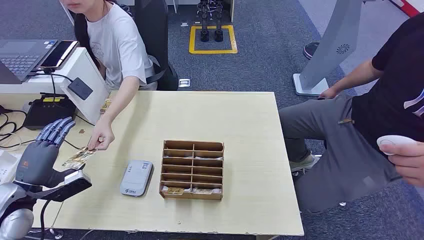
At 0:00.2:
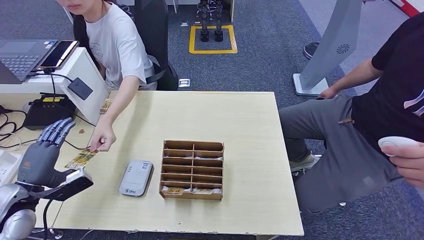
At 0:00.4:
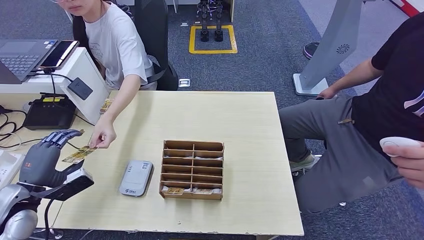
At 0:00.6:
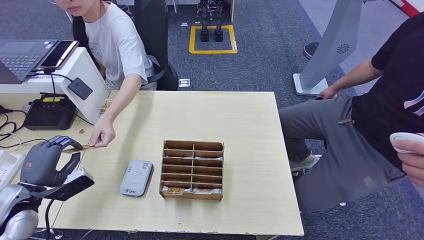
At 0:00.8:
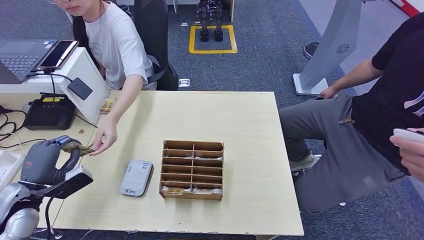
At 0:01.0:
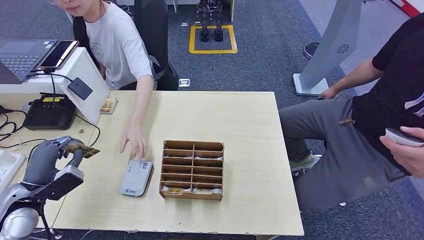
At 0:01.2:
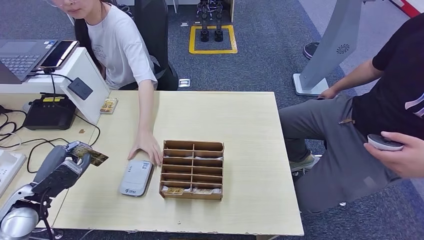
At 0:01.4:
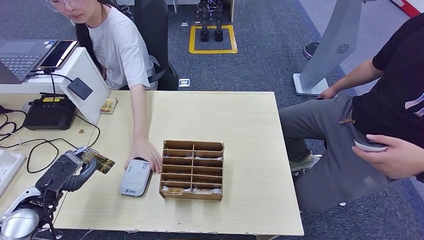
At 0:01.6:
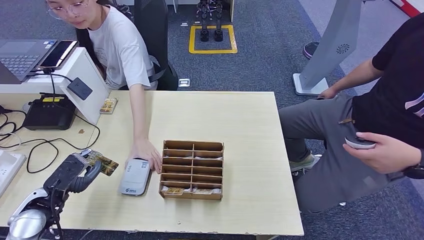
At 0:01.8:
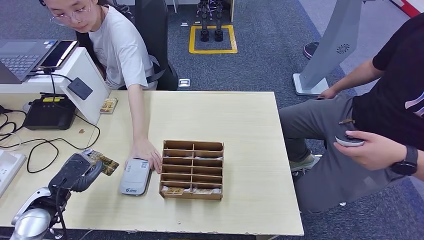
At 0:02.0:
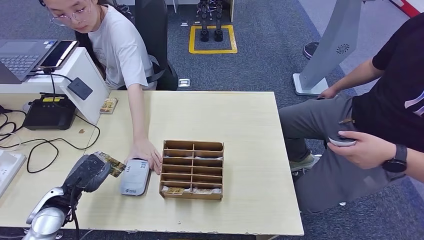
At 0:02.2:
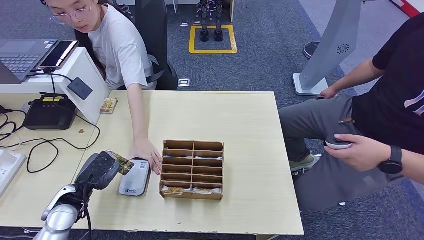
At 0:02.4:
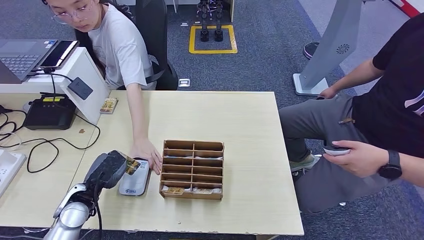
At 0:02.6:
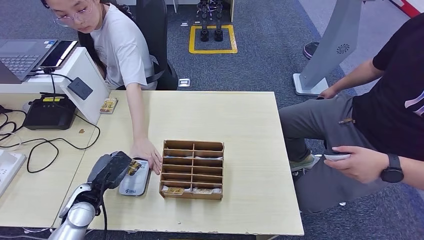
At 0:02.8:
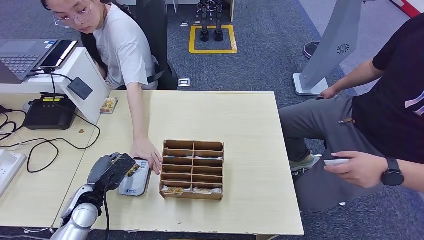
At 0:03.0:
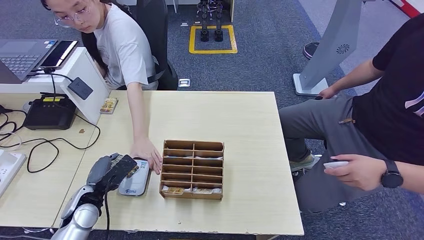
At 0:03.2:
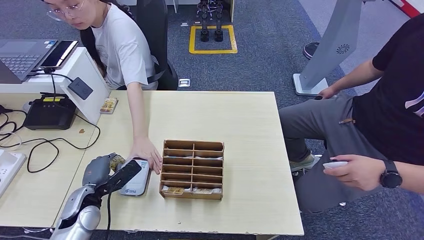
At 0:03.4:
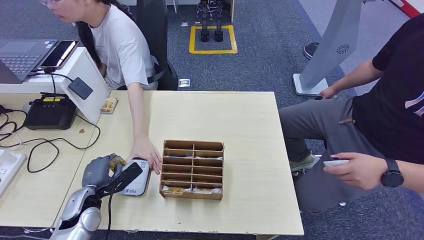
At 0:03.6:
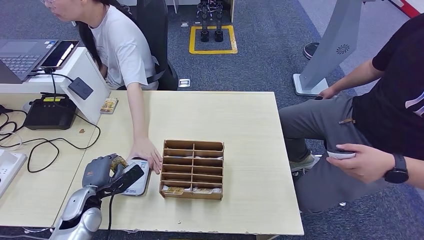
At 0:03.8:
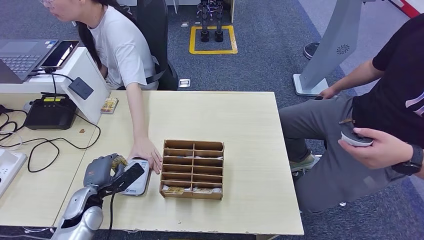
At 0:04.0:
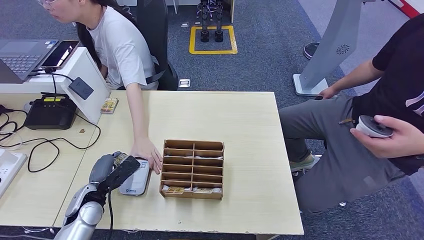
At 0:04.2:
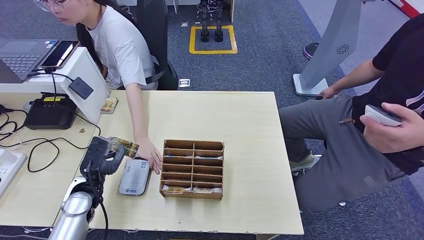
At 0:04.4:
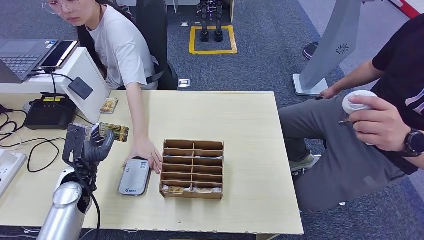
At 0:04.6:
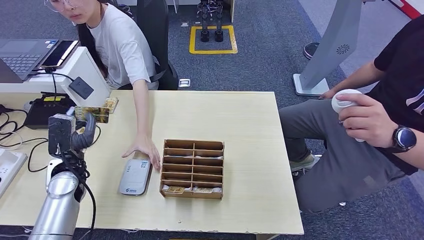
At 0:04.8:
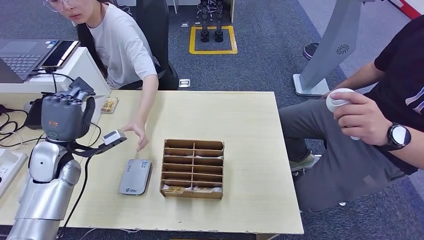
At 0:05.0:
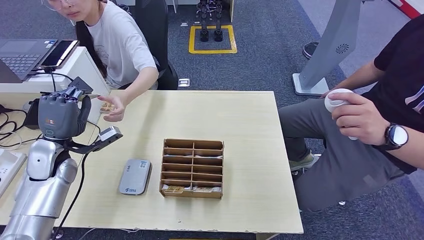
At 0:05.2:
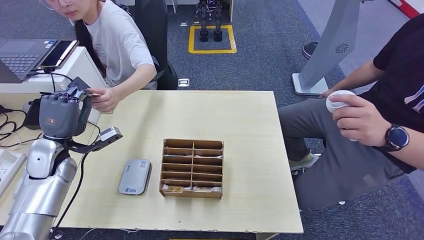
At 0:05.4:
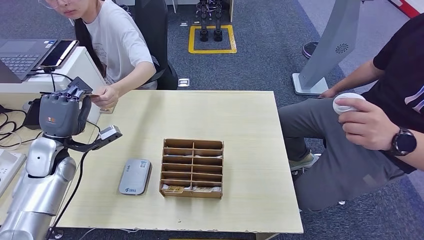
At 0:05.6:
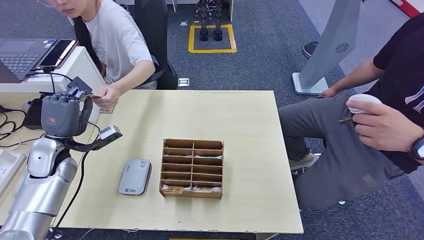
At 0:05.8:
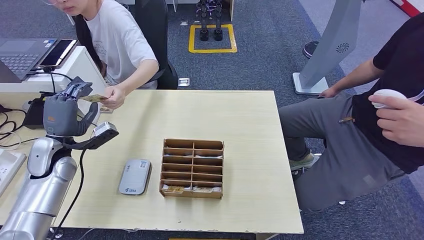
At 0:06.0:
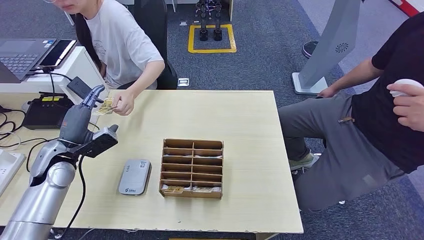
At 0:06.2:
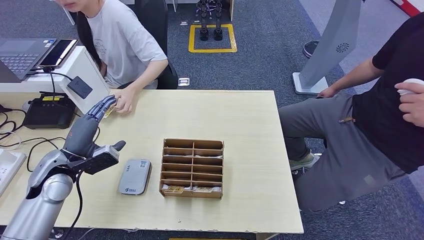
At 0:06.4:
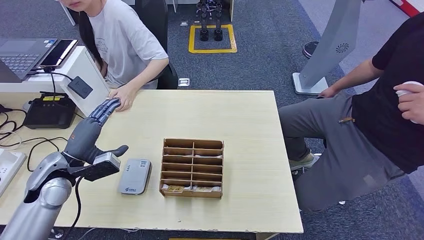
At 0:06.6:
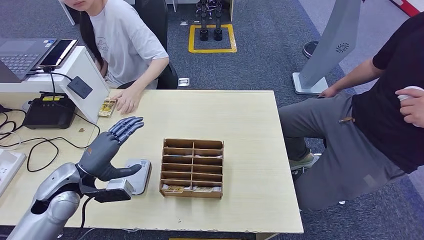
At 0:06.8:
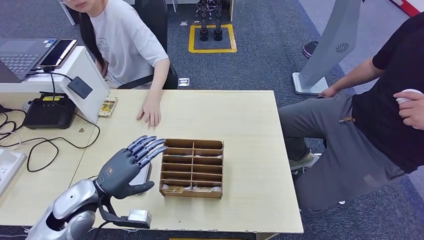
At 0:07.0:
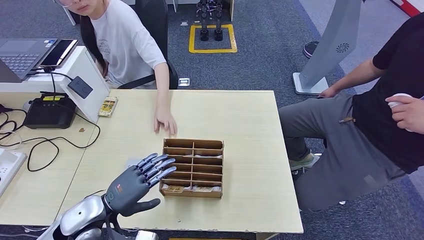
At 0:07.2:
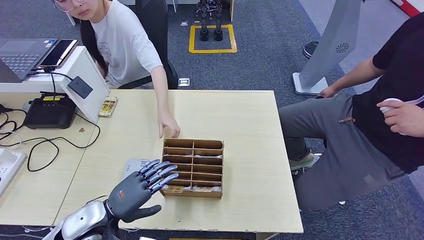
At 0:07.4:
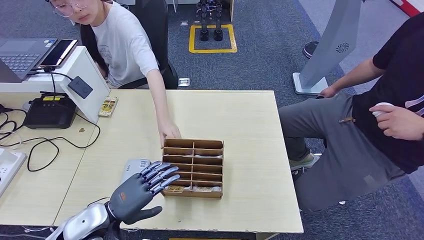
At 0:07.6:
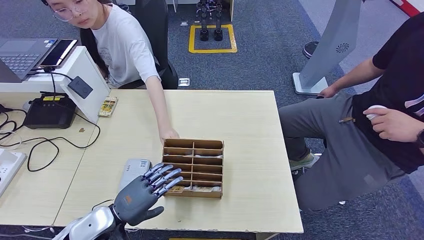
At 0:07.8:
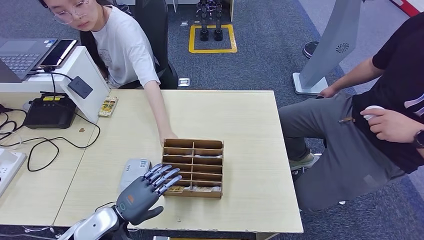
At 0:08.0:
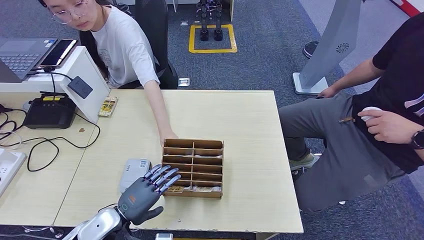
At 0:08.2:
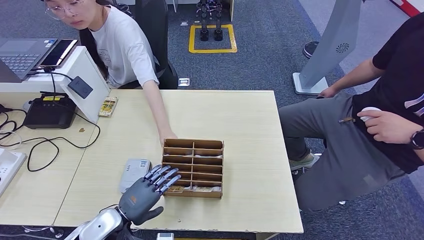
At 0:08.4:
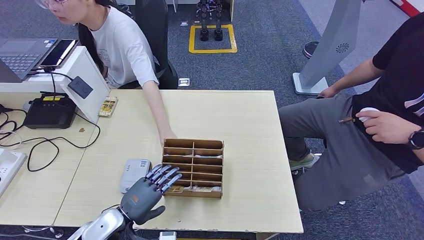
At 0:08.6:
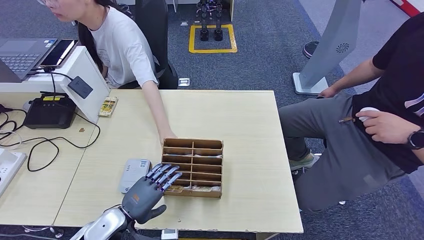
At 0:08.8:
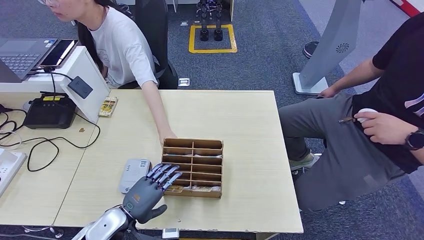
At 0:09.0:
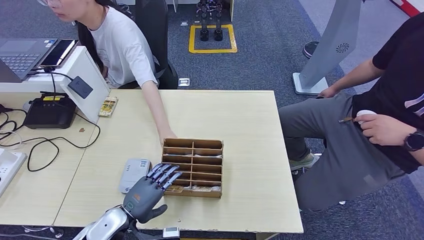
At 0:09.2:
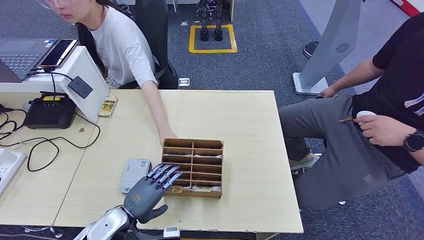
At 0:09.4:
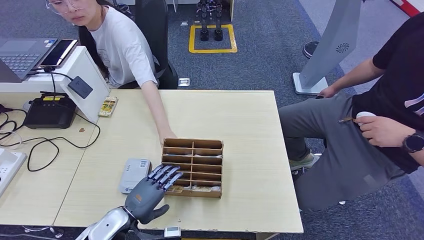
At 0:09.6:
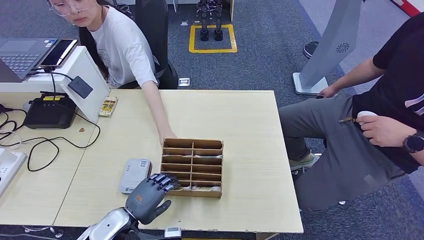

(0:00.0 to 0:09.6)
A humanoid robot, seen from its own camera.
Step, 0:00.0 - 0:01.6: Take the ID card from the person's hand.
Step, 0:01.8 - 0:04.0: Place the ID card on the card reader.
Step, 0:04.2 - 0:05.6: Hand the ID card to the person.
0:01.6 - 0:03.2: The left hand heads to the right and downward, covering approximately 10 cm.
0:06.4 - 0:08.0: The left hand is displaced to the right, backward and downward by some 20 cm.
0:08.0 - 0:09.6: There are only small adjustments of the hands.

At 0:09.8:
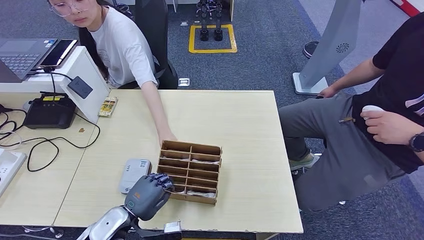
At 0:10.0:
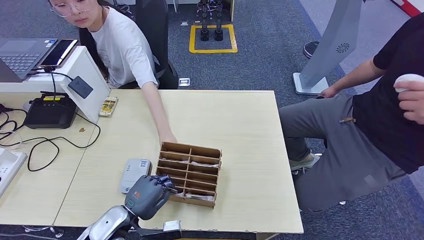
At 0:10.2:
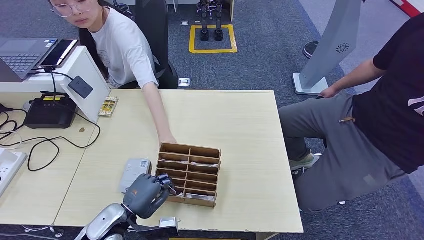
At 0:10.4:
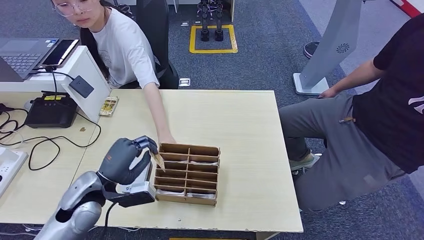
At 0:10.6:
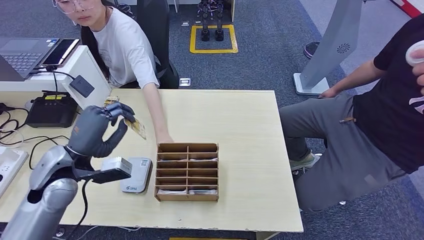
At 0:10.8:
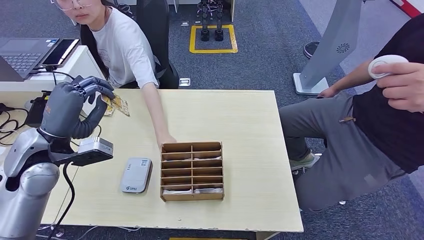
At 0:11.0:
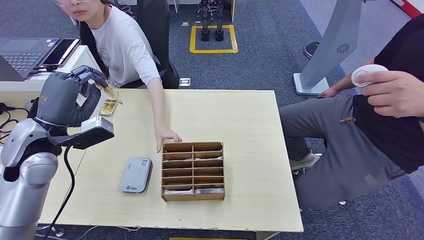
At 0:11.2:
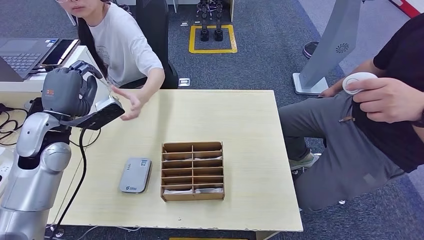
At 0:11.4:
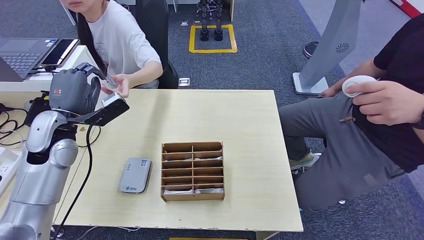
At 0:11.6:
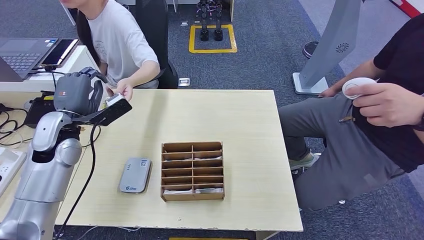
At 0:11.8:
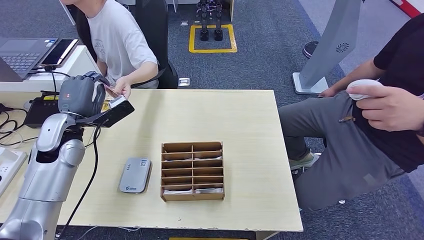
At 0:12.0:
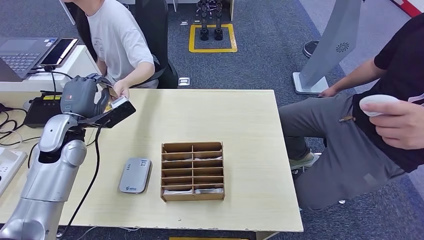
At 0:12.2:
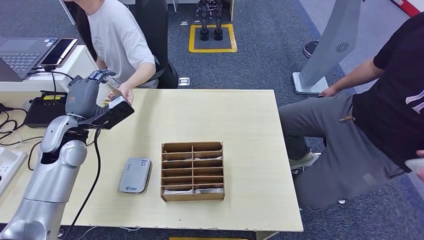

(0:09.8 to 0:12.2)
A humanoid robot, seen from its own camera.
Step, 0:10.8 - 0:12.2: Hand the room key to the person.

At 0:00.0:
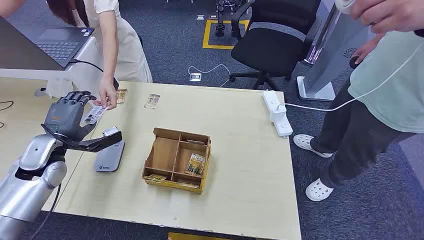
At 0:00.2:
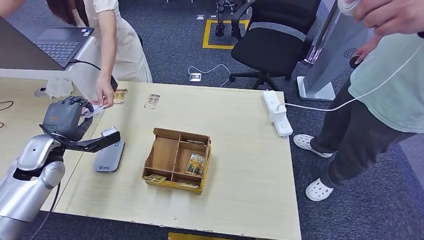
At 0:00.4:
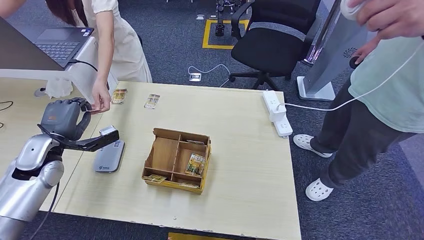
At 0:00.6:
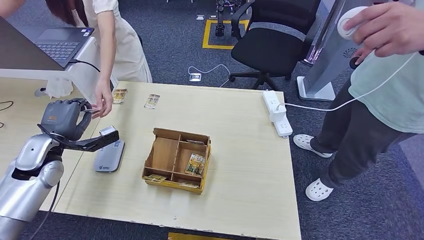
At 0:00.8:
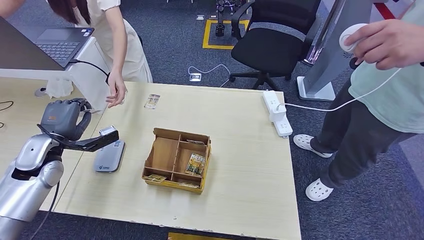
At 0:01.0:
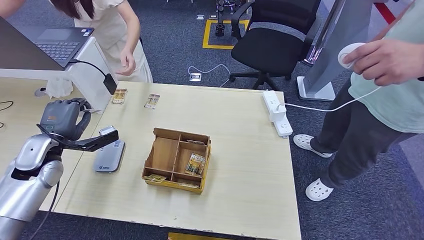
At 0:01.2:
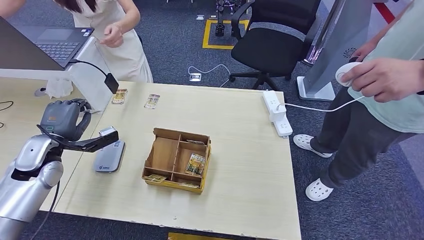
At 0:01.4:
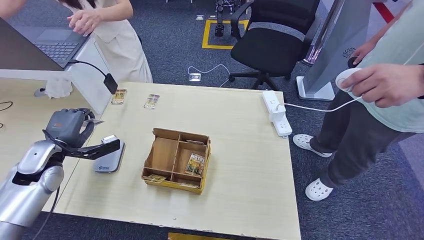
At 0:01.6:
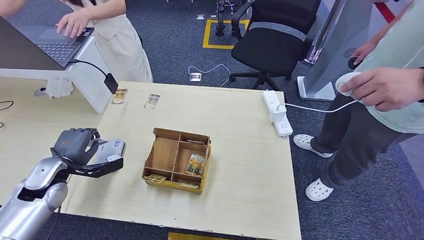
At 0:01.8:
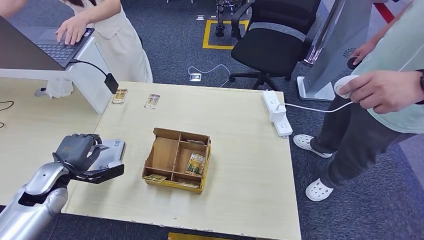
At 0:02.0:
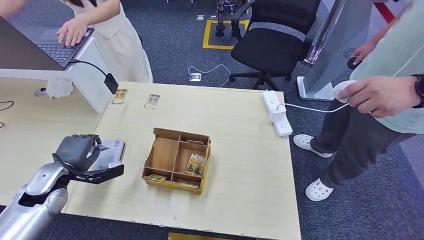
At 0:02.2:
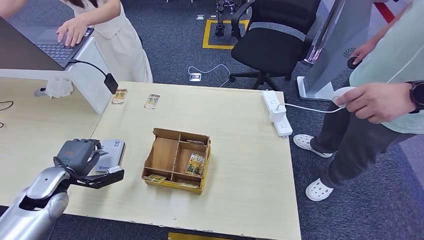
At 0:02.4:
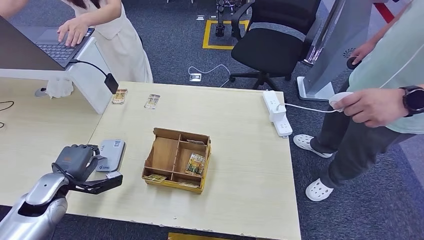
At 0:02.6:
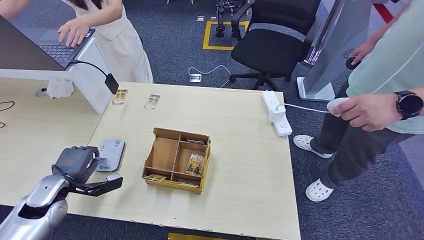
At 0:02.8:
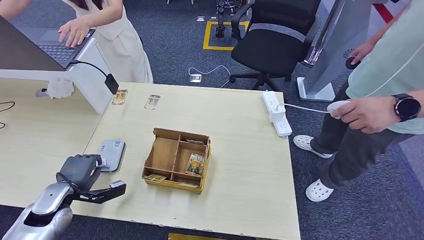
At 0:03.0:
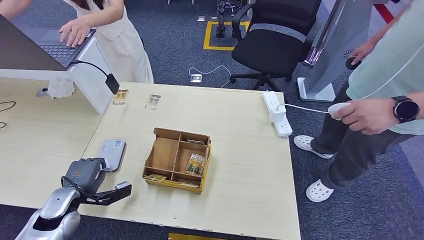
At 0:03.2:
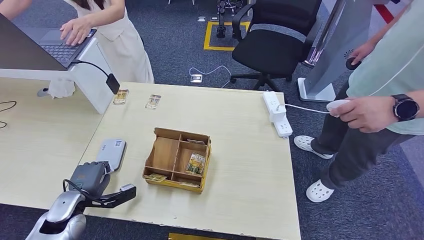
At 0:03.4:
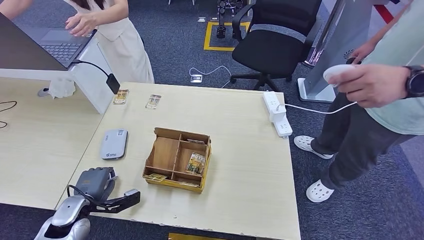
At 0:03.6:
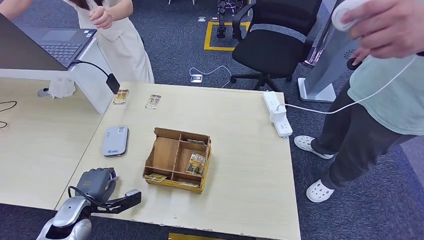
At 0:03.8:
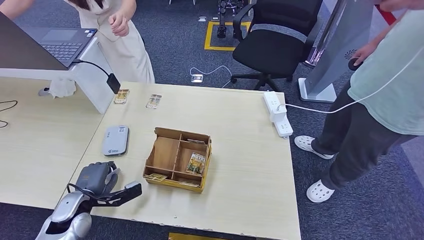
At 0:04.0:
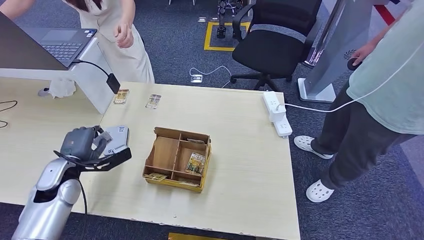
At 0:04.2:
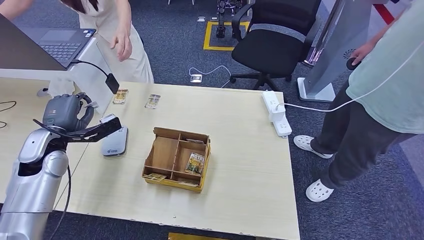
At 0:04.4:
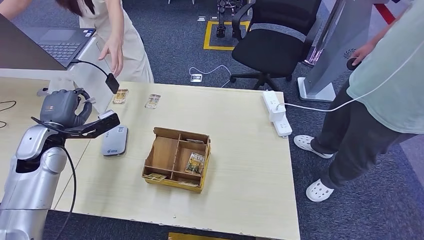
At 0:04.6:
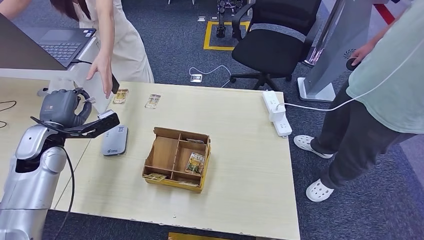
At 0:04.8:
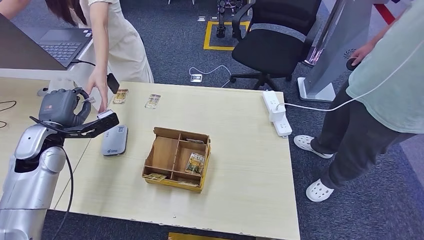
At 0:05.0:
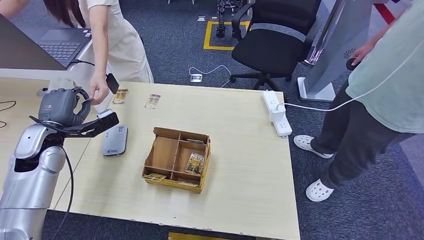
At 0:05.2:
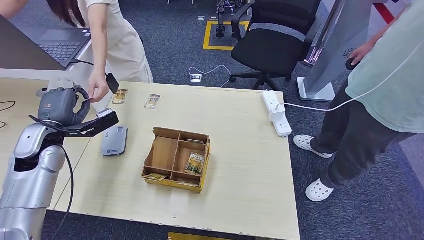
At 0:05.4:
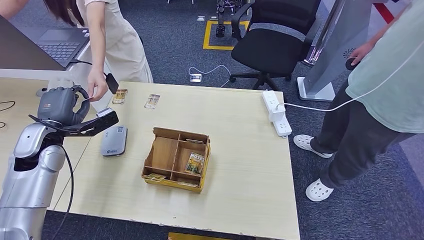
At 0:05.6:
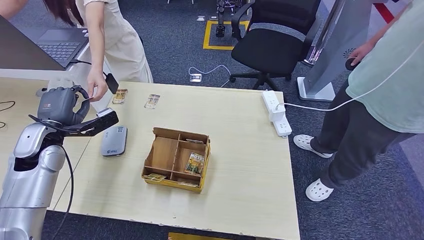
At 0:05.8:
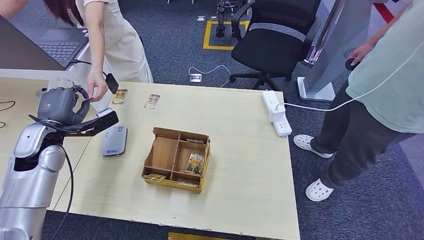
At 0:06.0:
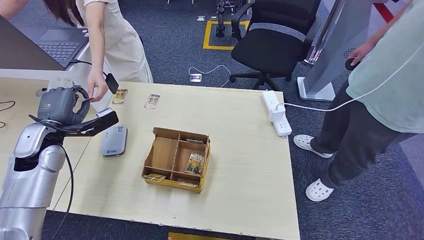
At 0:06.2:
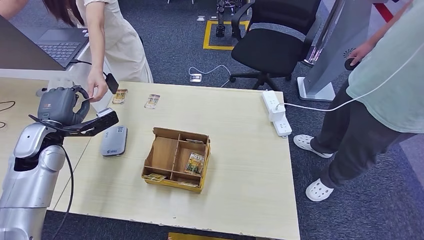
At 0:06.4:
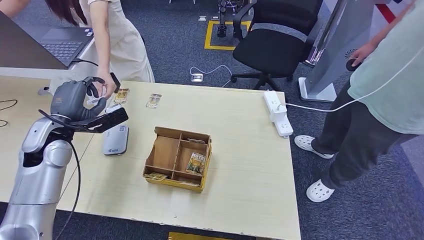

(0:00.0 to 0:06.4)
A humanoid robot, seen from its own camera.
Step, 0:00.0 - 0:00.8: Take the ID card from the person's hand.
Step, 0:01.0 - 0:05.0: Place the ID card on the card reader.
0:01.6 - 0:03.2: The left hand shifts approximately 10 cm downward and backward.
0:03.2 - 0:04.8: The left hand shifts roughly 20 cm upward and forward.
0:04.8 - 0:06.4: The hands stay close to where they were, moving slightly.
